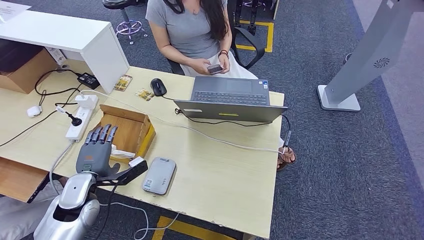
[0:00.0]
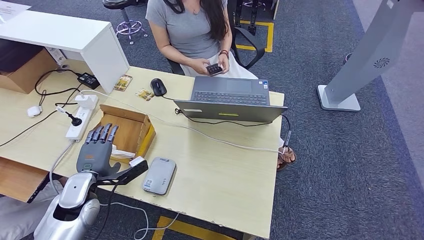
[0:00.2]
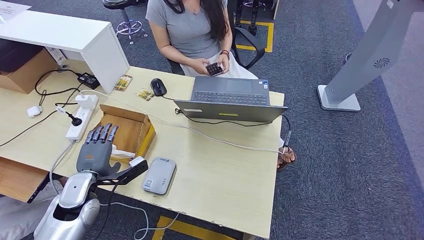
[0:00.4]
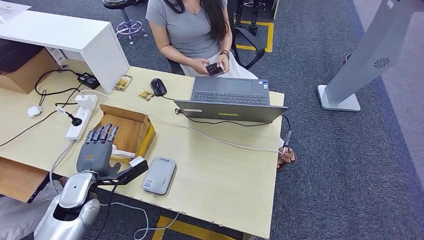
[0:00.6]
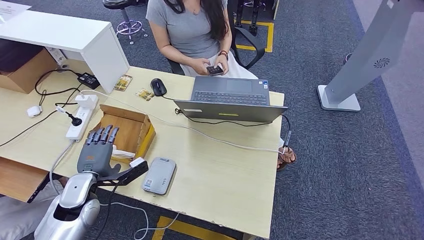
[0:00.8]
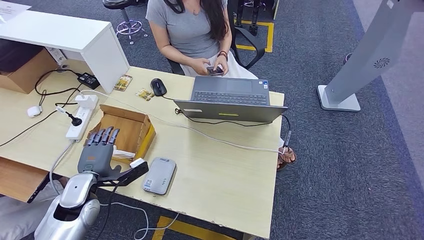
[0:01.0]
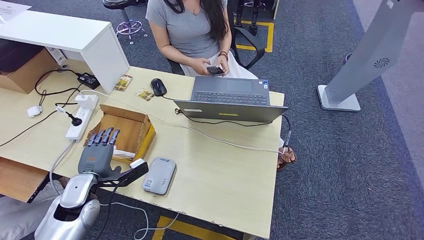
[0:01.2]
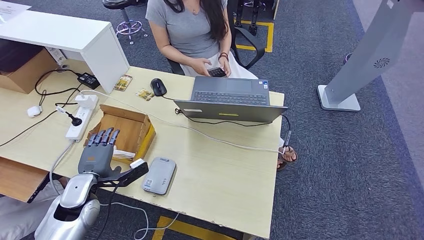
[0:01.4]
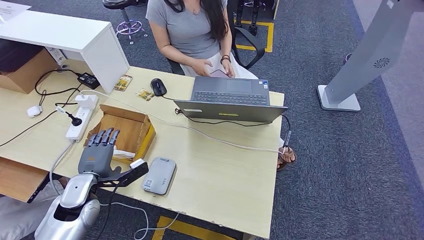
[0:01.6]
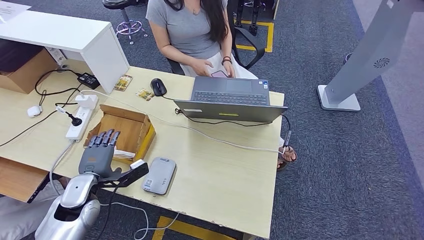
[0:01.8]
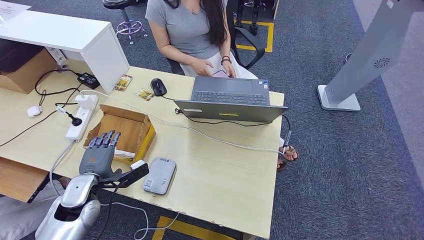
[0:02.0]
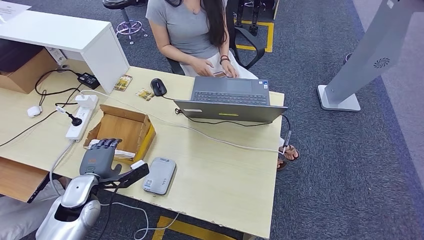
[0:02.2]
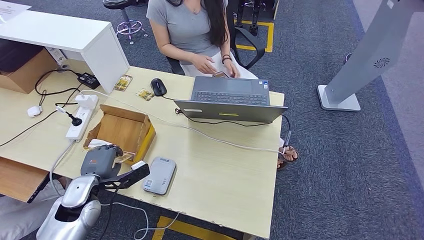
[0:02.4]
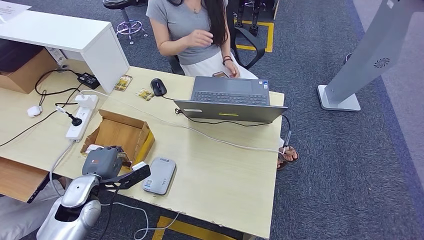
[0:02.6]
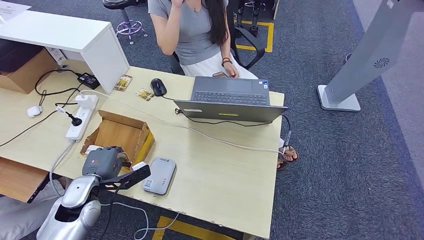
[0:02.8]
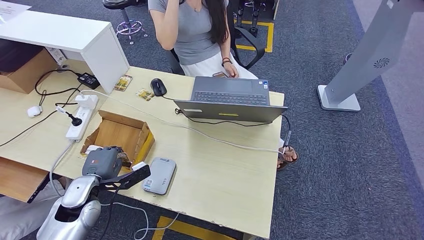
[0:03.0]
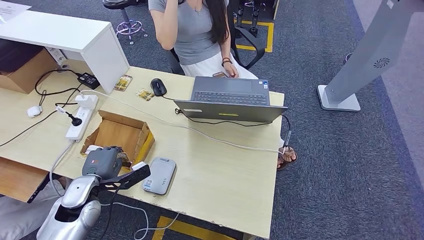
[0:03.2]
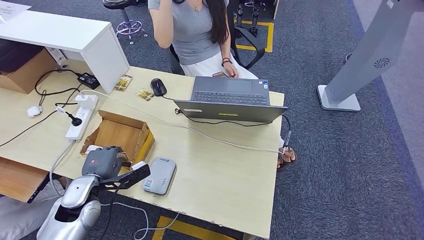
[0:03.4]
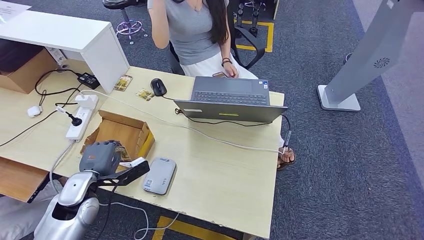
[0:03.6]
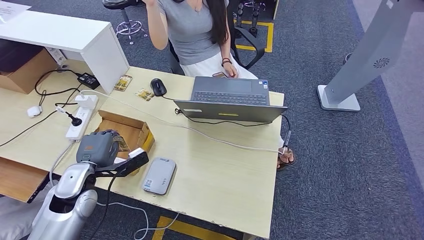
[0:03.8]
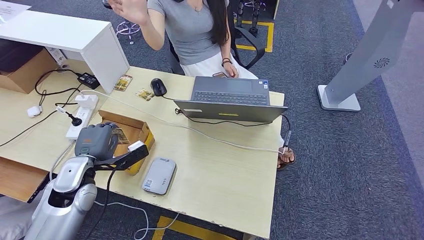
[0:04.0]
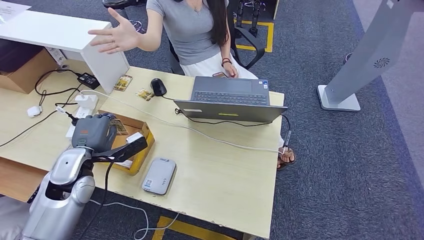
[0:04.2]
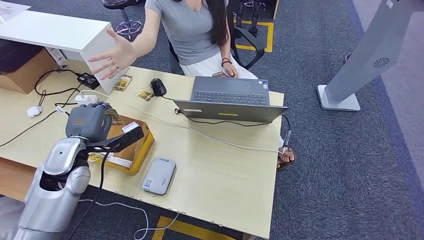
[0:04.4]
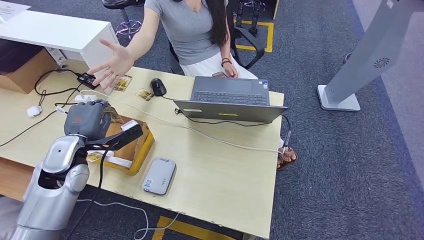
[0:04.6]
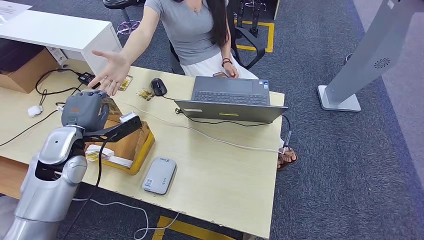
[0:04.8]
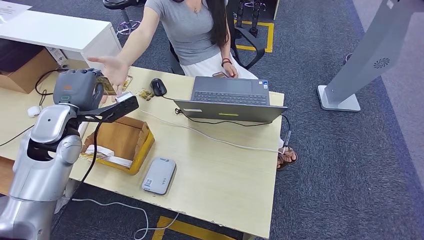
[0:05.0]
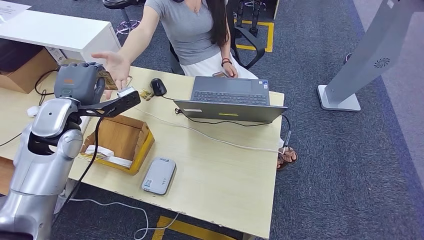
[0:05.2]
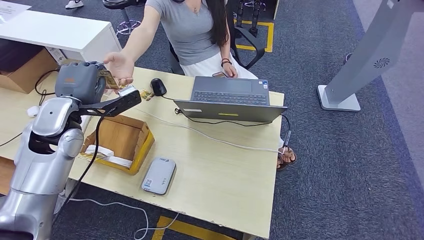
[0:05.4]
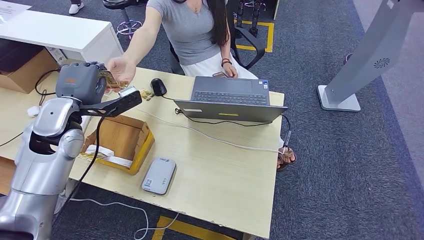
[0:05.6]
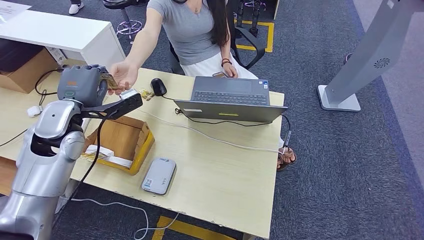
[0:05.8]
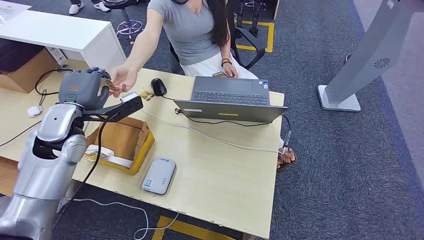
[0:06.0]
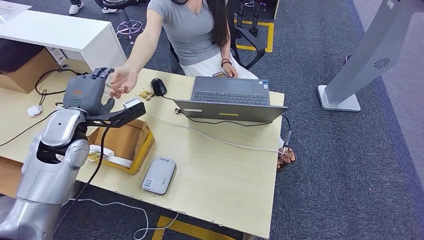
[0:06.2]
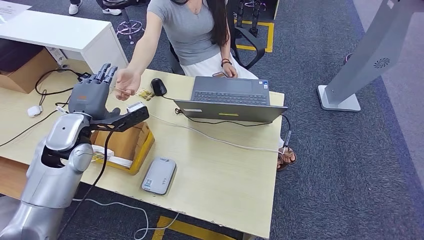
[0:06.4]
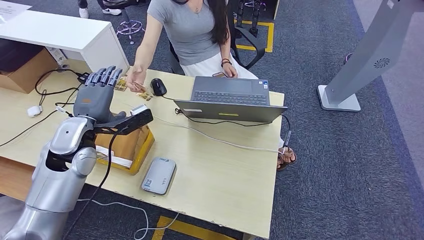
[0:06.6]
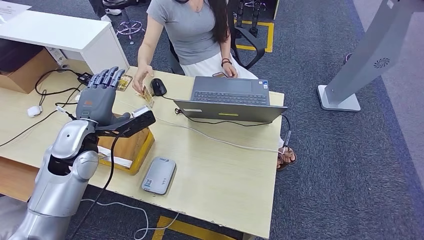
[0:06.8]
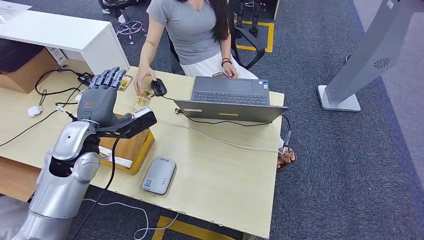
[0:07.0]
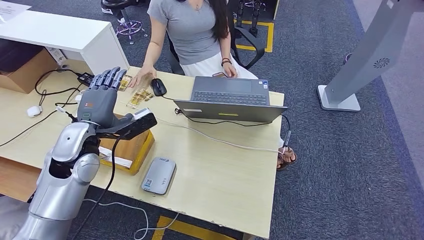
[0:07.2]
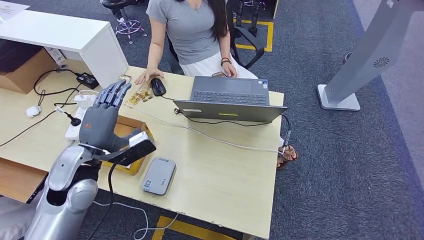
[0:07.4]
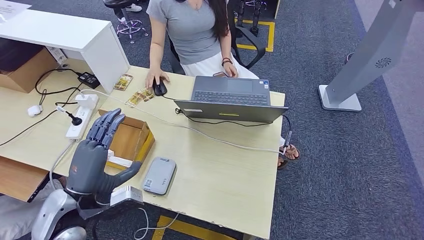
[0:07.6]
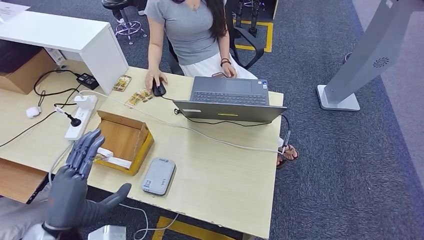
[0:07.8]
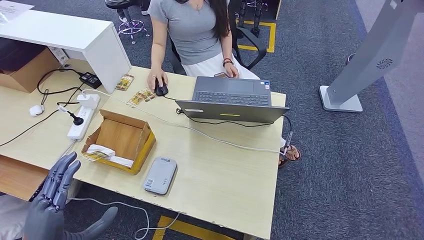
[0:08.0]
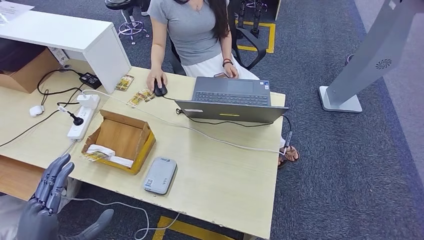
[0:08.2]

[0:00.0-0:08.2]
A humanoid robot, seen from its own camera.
Step, 0:00.0 to 0:02.6: Pick up the room key from the key card box.
Step, 0:02.8 to 0:08.2: Hand the room key to the person.
0:00.0 to 0:01.6: Neither hand changes place.
0:01.6 to 0:03.2: The hands stay close to where they were, moving slightly.
0:03.2 to 0:05.0: The left hand shifts about 20 cm upward and forward.
0:05.0 to 0:06.6: The hands make only small movements.
0:06.6 to 0:08.2: The left hand is displaced backward by some 30 cm.
